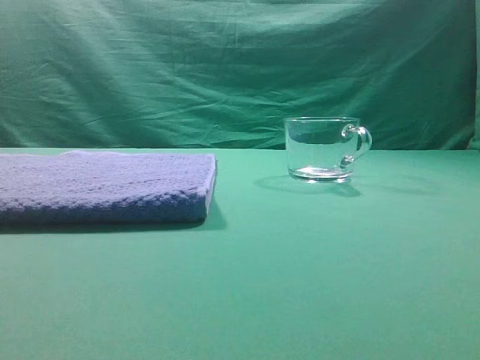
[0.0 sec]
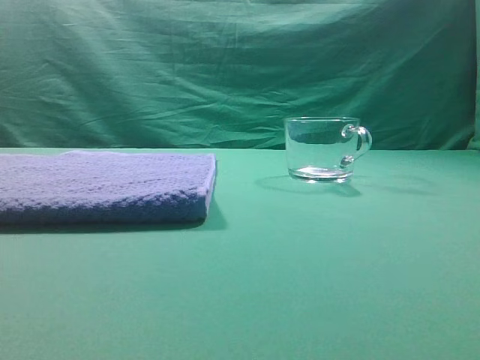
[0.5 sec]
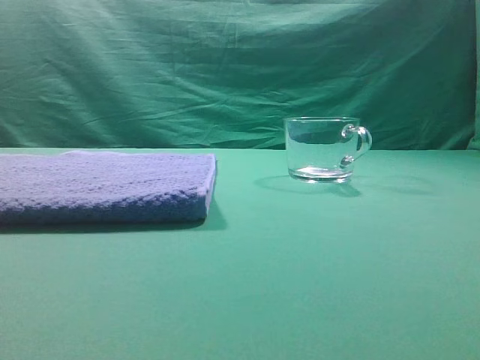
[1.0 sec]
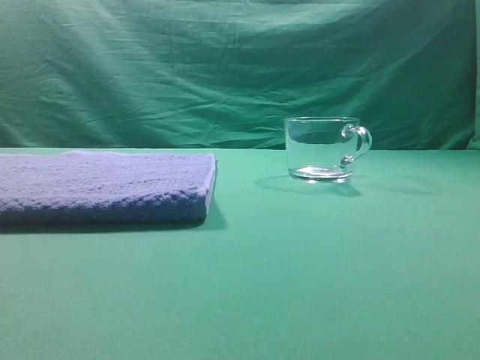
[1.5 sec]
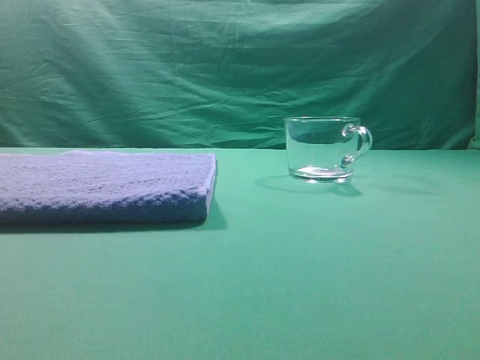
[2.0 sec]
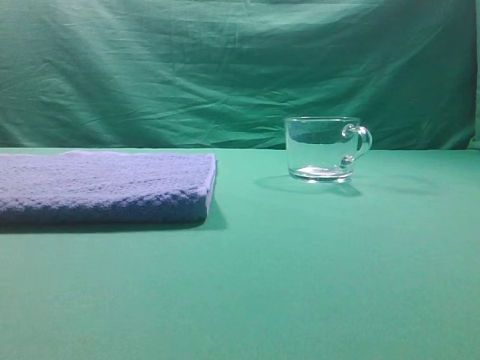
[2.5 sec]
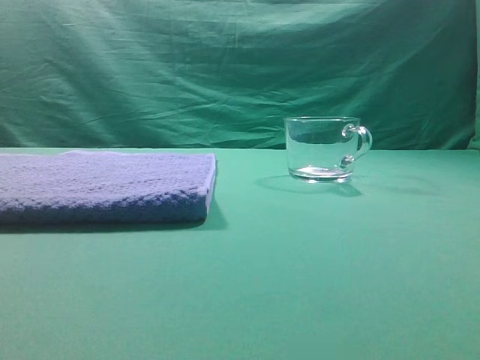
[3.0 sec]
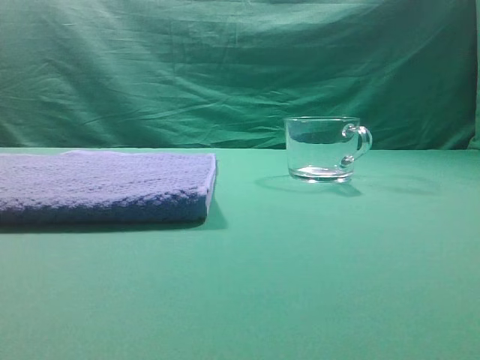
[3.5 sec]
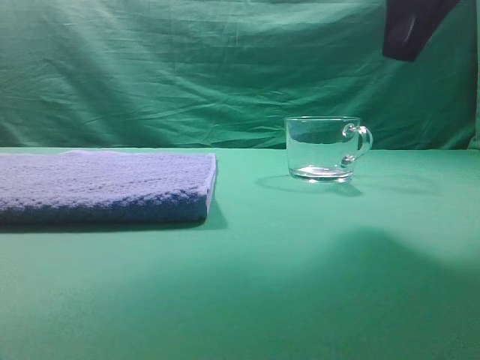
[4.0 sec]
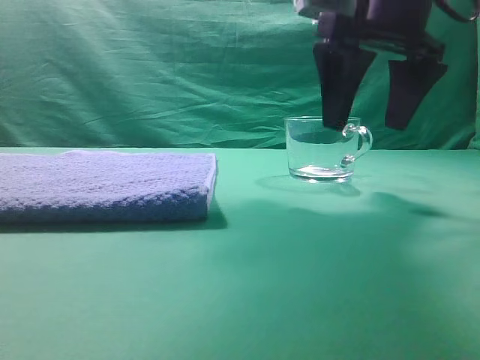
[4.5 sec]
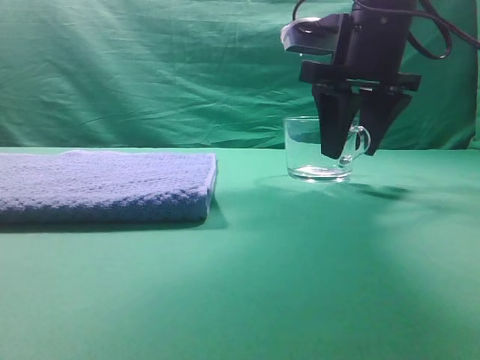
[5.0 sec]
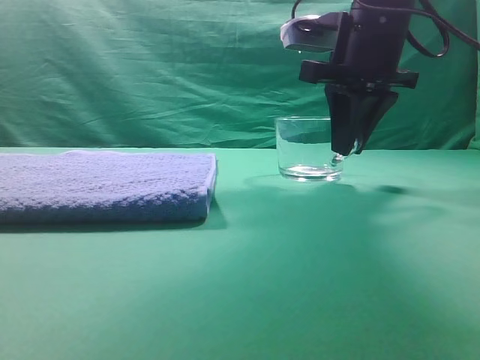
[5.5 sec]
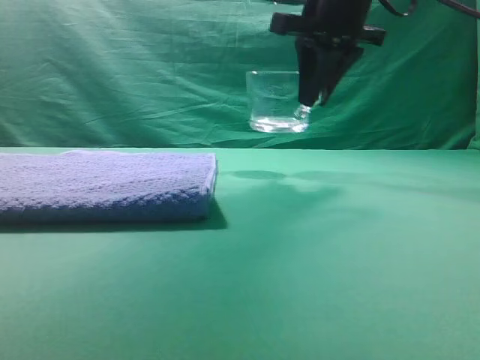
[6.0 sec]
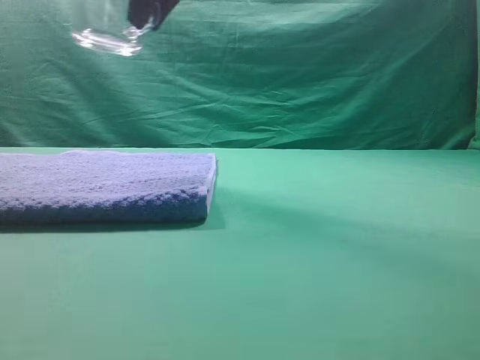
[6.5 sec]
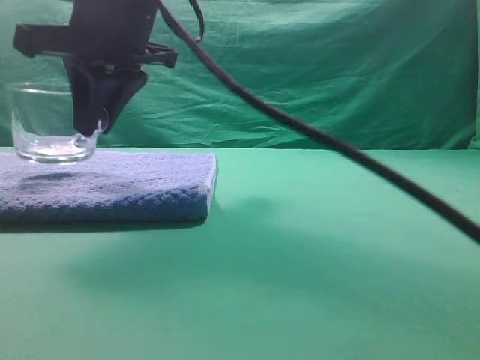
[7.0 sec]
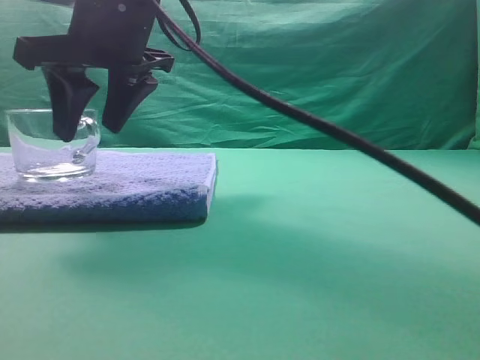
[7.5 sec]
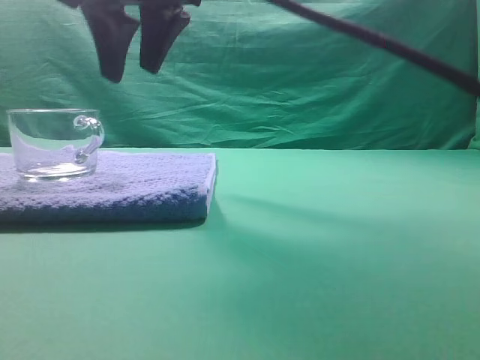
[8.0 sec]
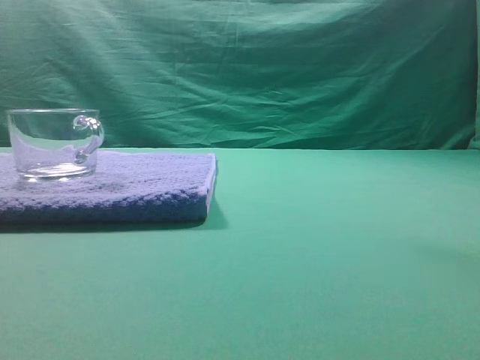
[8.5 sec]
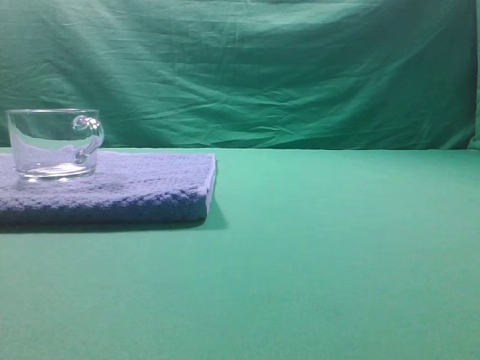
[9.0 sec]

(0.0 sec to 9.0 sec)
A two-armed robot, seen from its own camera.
Task of the whole recording: grasp the transparent glass cup and place it within the blue towel.
Step, 0.0 sec - 5.5 sec: Grasp the transparent glass cup.
Step, 6.0 sec - 7.5 sec: Place the glass cup on the blue zone.

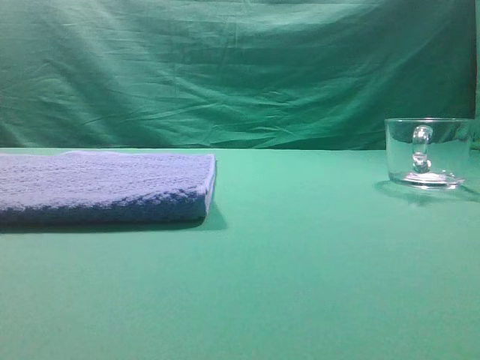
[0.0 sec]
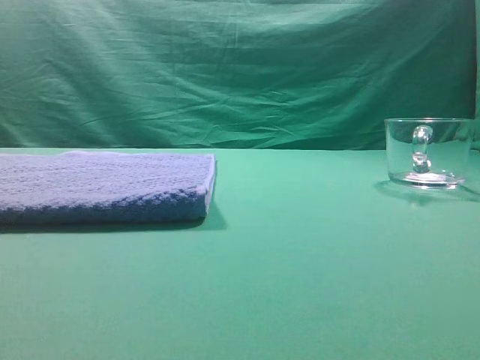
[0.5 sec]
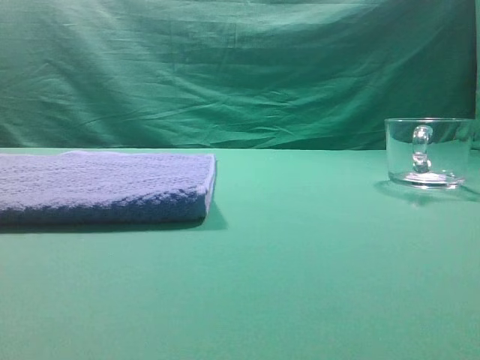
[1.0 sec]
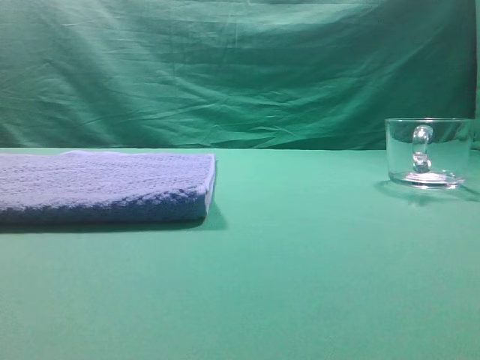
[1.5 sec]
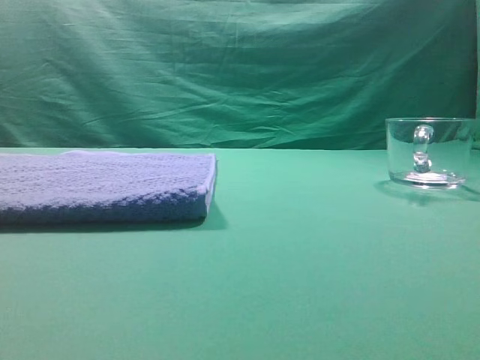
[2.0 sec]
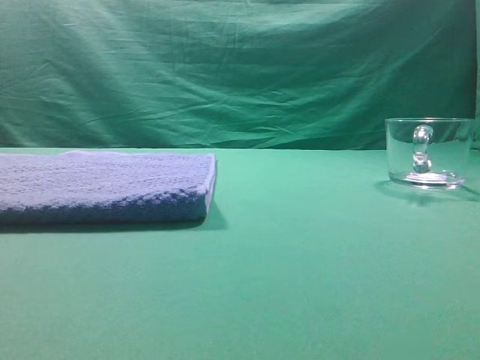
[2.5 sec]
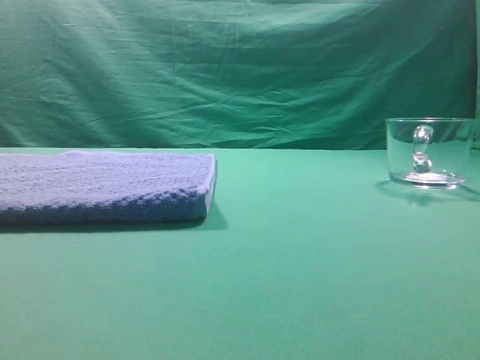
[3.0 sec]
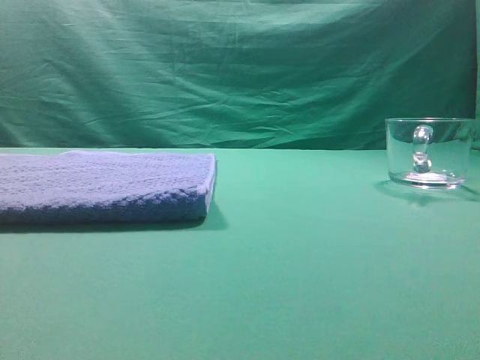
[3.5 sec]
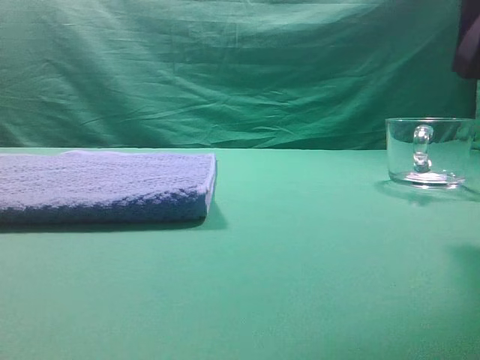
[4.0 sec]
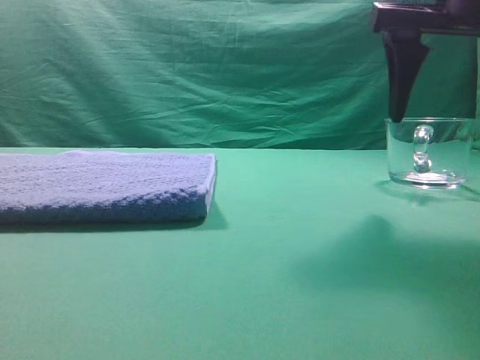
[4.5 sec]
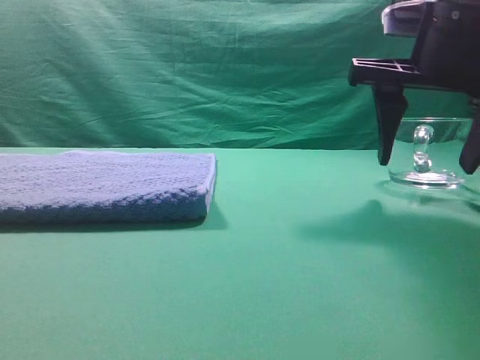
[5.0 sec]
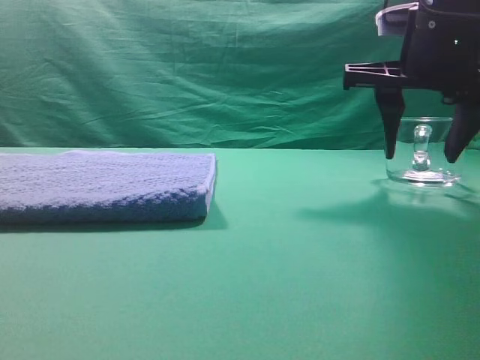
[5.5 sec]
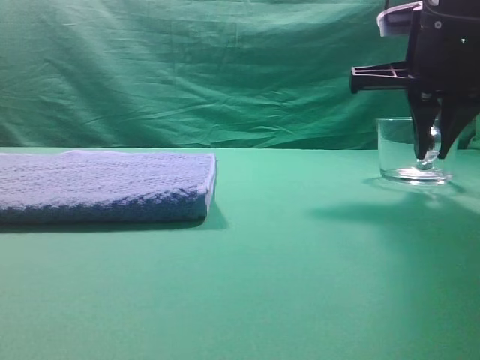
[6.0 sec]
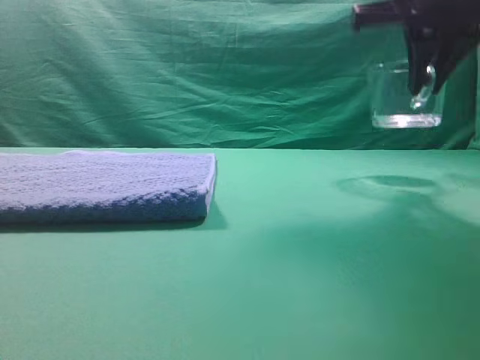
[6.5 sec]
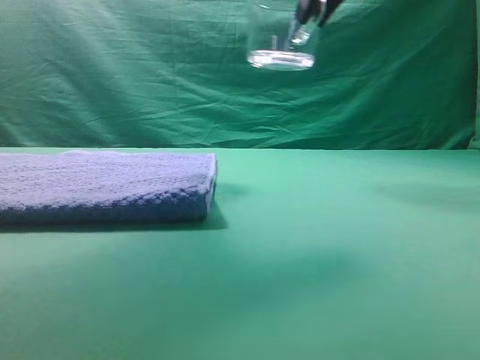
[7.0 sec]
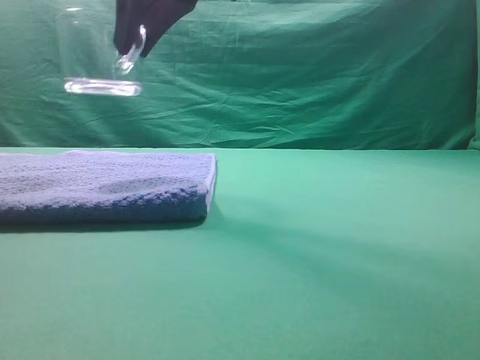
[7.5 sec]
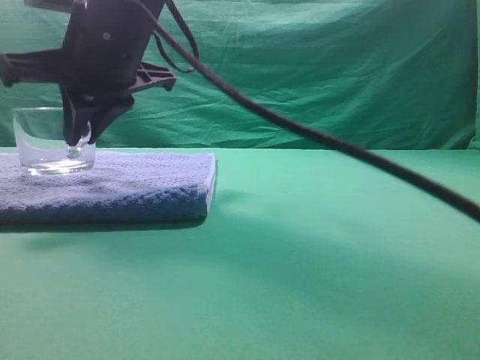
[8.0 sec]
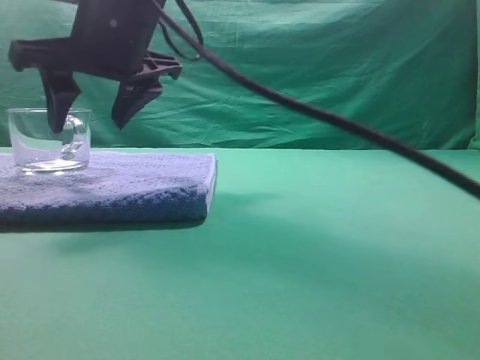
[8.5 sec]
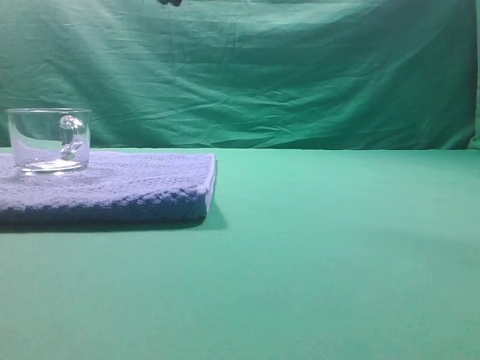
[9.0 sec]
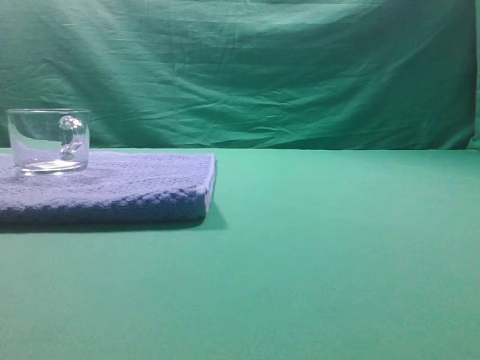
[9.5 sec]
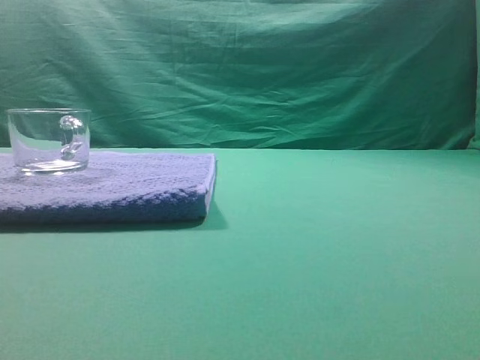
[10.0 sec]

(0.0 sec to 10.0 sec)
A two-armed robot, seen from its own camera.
Task of the whole recording: grasp the transparent glass cup and place it within the blue towel.
Step, 0.0 sec - 6.0 sec: Grasp the transparent glass cup.
Step, 6.5 sec - 8.5 sec: Place the glass cup on the blue zone.

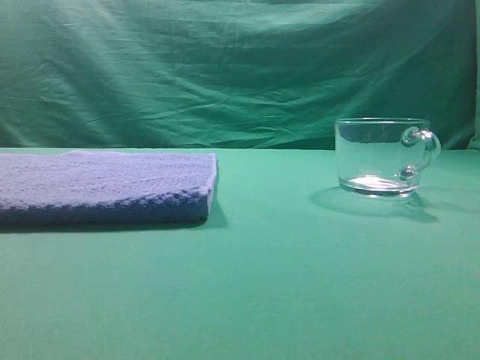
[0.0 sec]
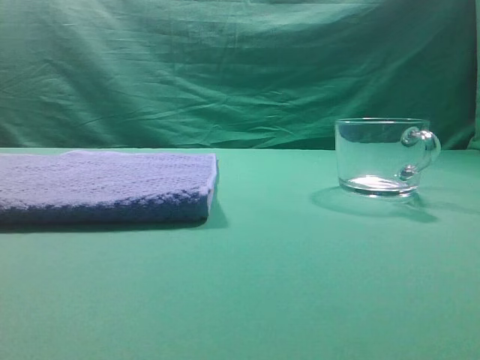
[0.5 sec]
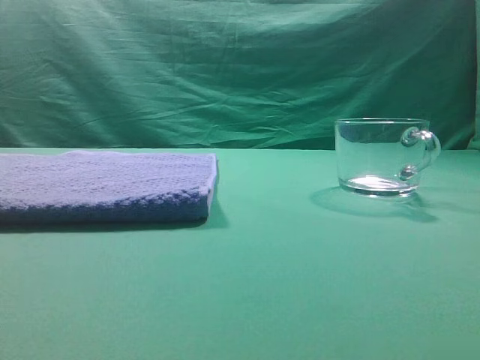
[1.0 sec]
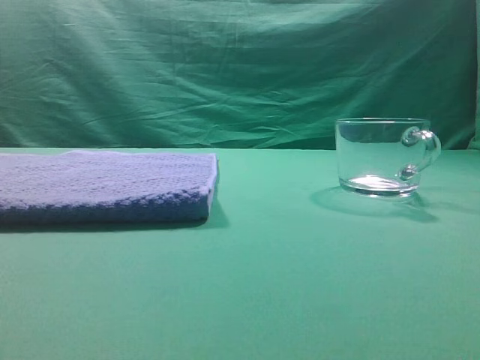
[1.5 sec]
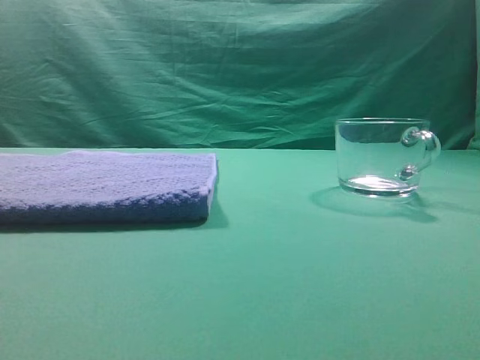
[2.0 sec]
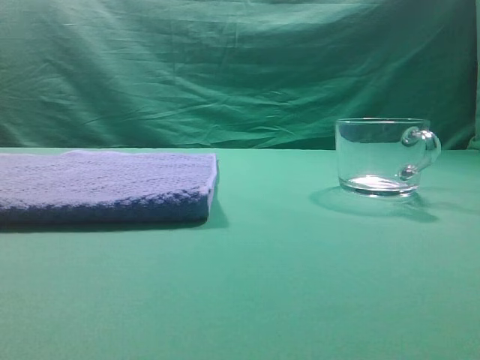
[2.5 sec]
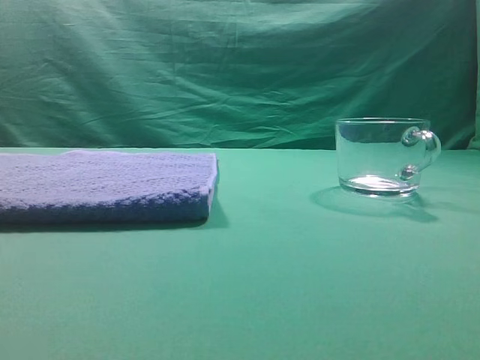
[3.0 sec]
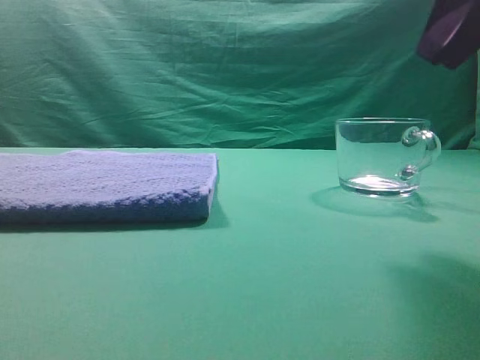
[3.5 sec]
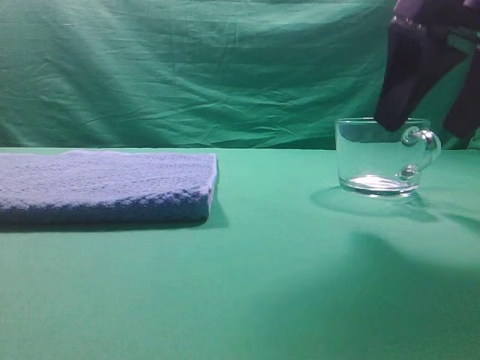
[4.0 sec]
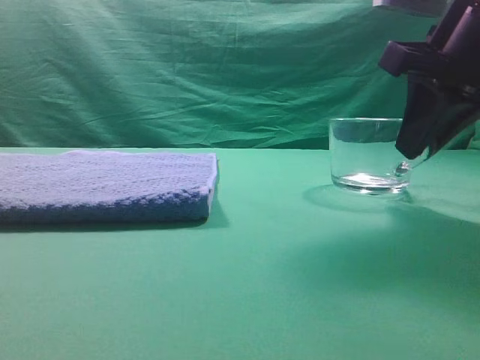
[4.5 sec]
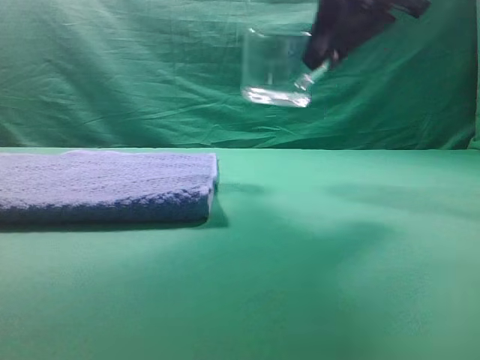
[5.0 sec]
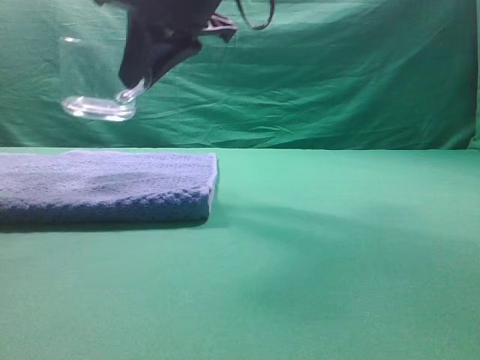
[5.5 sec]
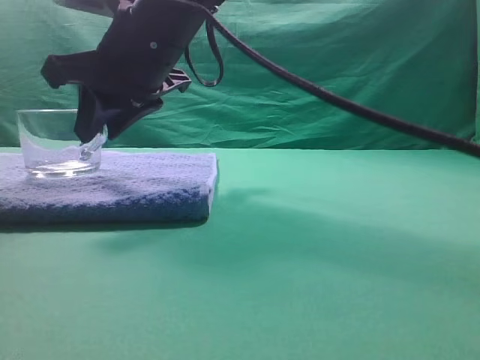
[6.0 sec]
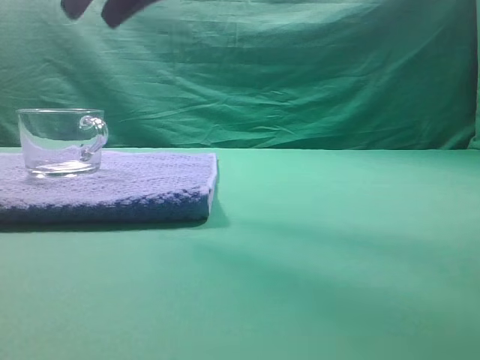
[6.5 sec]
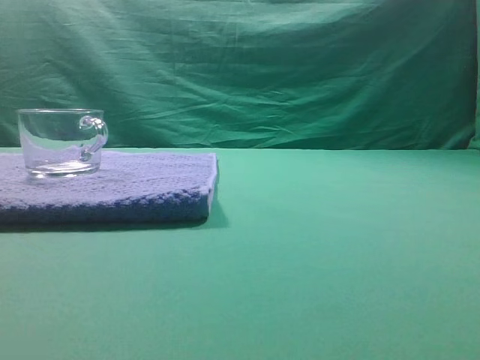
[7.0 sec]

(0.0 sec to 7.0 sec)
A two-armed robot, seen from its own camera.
Task of the whole recording: grasp the transparent glass cup and place it within the blue towel.
Step, 0.0 sec - 4.5 sec: Grasp the transparent glass cup.
Step, 5.0 sec - 6.0 sec: Place the glass cup on the blue zone.
